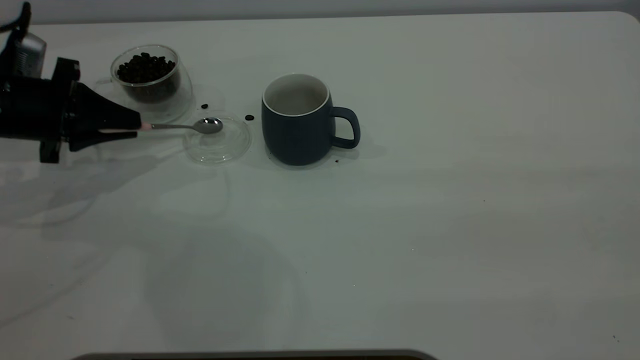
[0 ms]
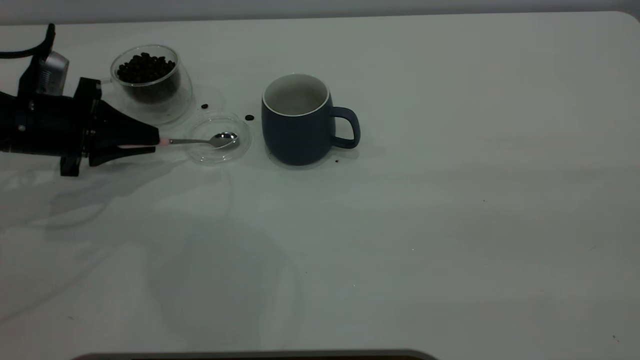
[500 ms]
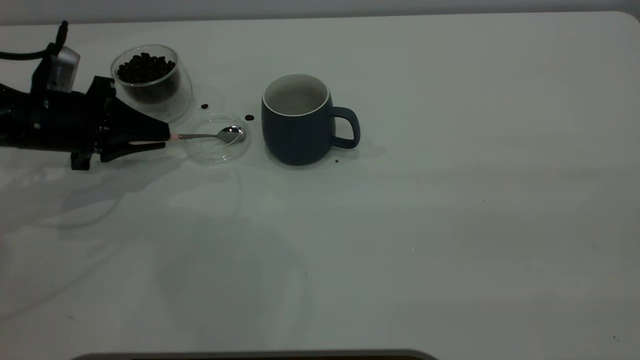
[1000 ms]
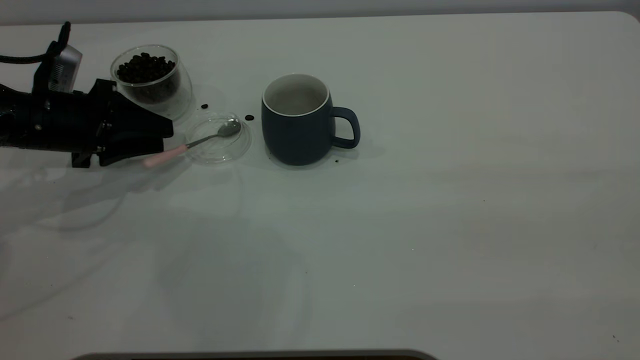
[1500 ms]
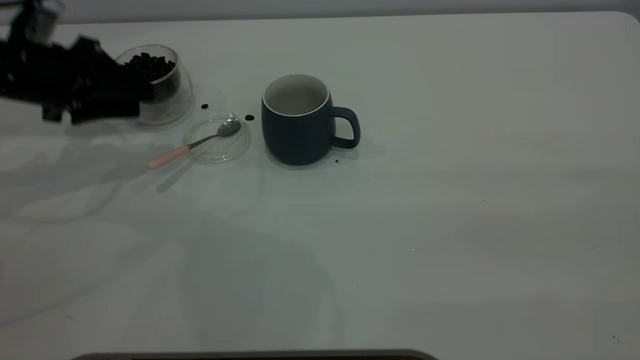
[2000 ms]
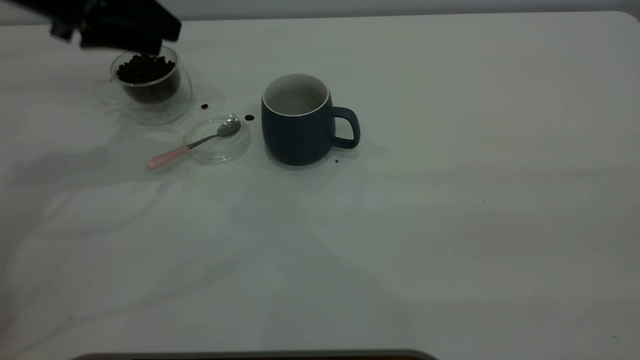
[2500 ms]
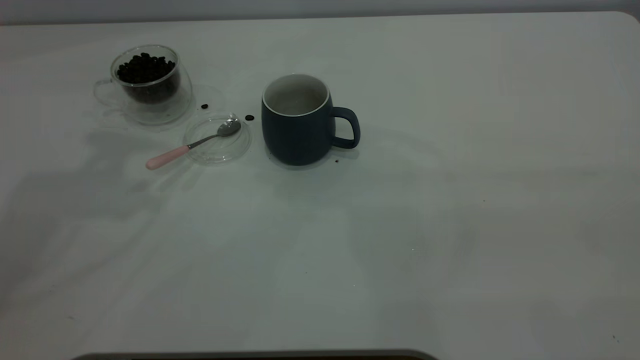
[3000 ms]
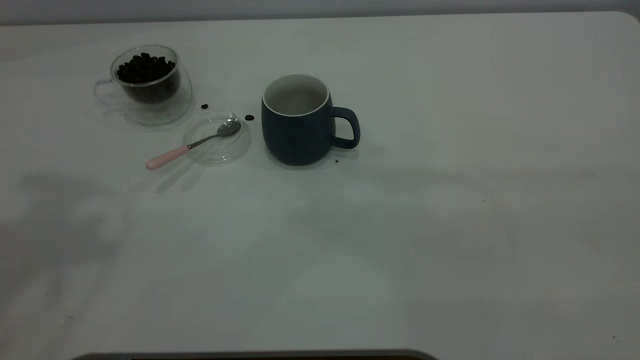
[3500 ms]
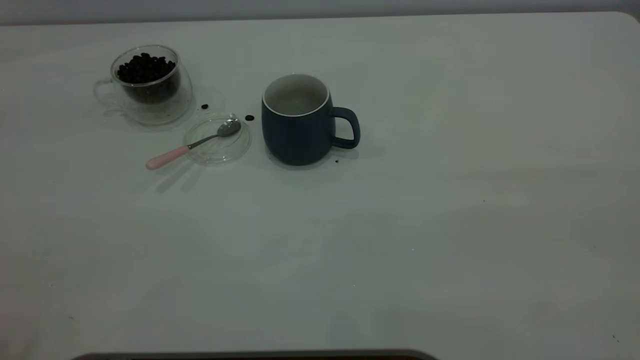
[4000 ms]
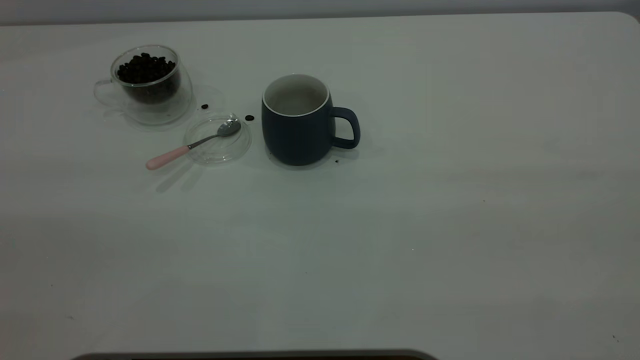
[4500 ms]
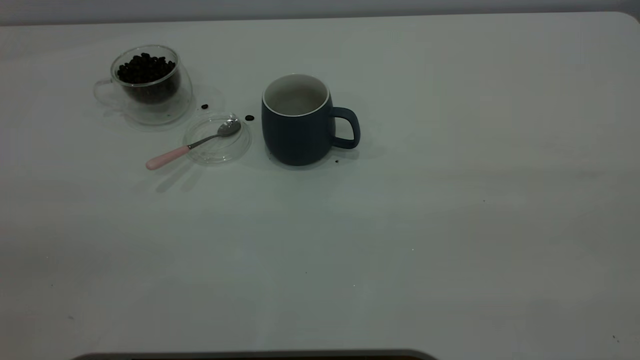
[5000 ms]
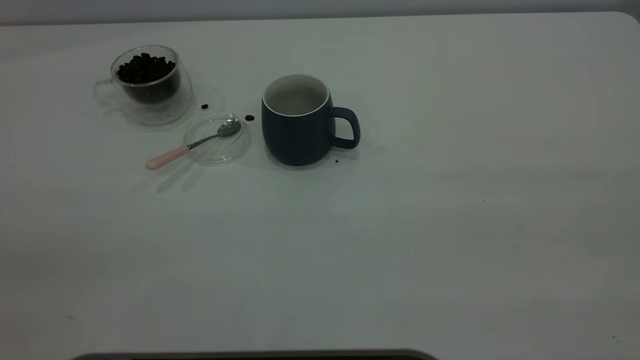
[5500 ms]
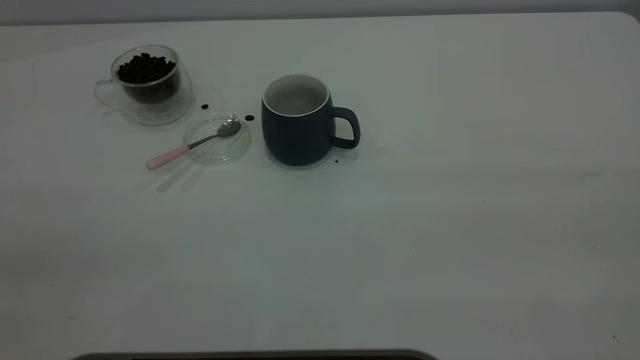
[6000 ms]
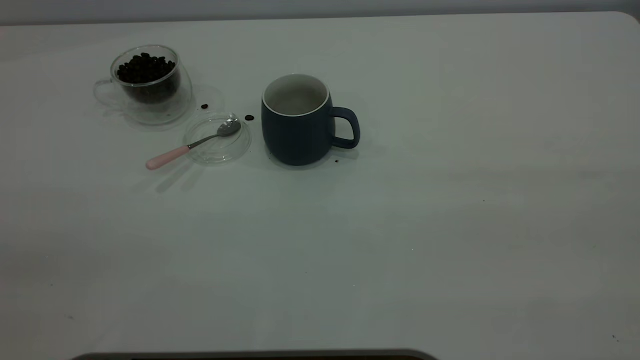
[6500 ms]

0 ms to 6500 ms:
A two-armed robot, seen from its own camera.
Task of the whole recording: the right gripper place the grey cup in the center of the table, the left gripper take the pink spoon from the cup lid and scoop out the coffee beans from the coffee cup and put them into the grey cup, the left gripper put the spoon back into the cup lid.
0 ms to 2000 ms: The left gripper moves approximately 5 cm, and opens its fingers.
2000 ms to 4500 ms: The left gripper travels backward and upward by roughly 40 cm.
